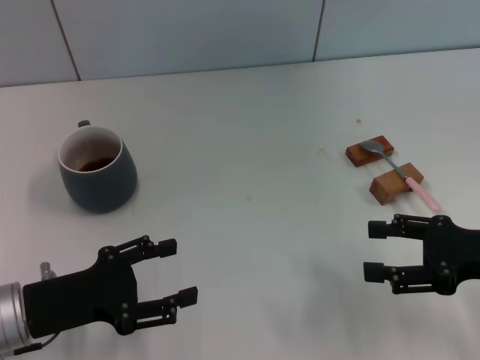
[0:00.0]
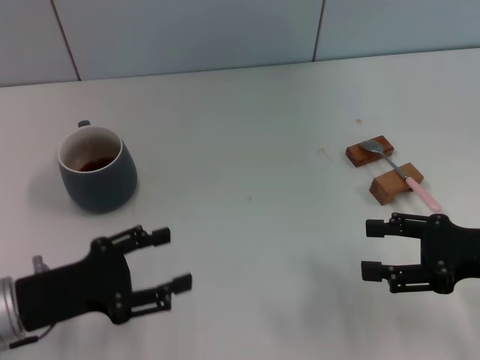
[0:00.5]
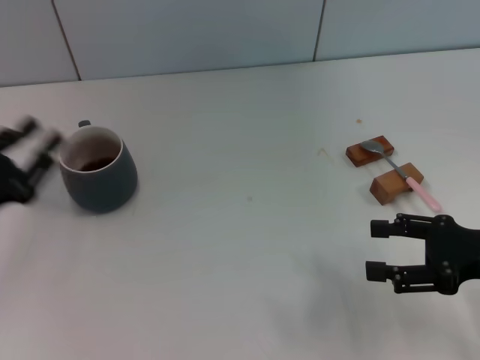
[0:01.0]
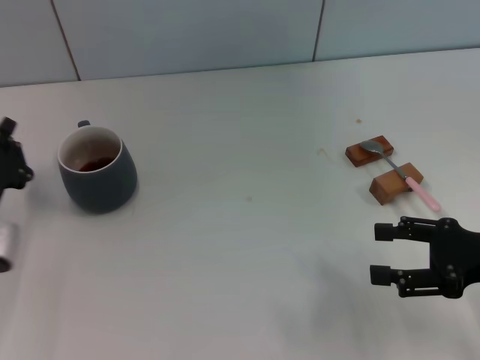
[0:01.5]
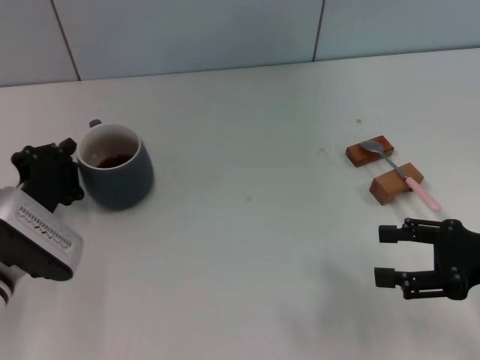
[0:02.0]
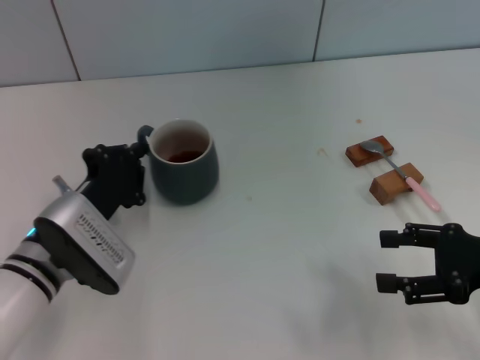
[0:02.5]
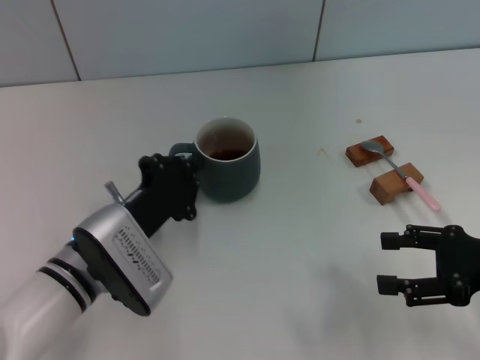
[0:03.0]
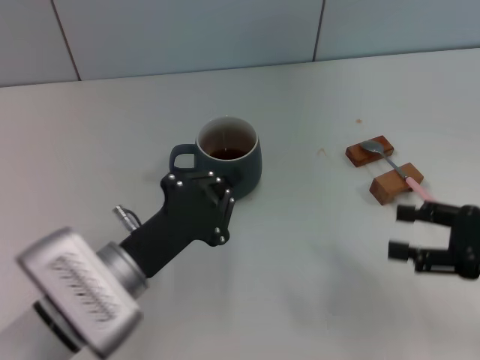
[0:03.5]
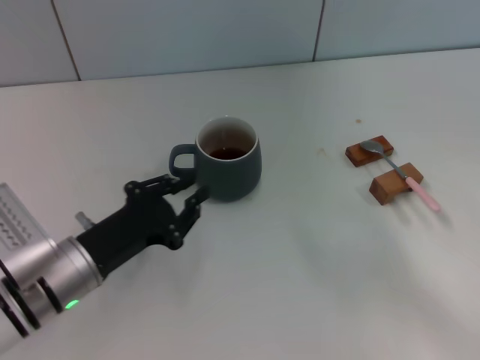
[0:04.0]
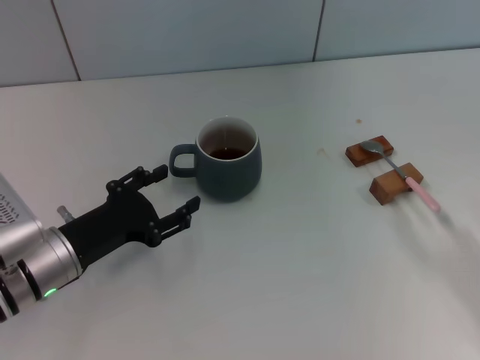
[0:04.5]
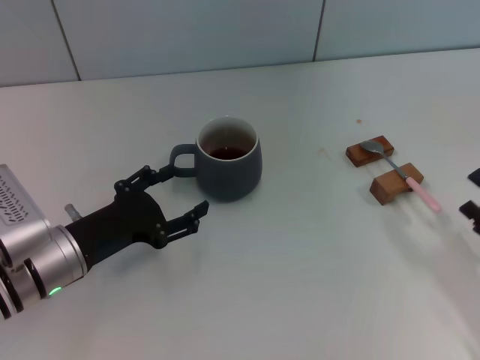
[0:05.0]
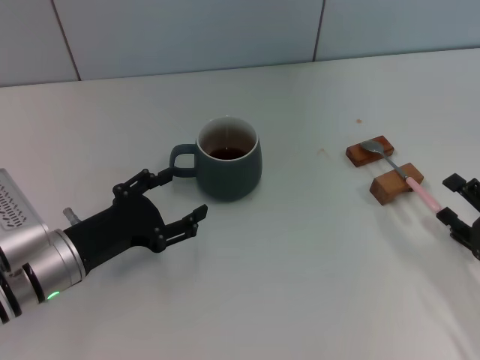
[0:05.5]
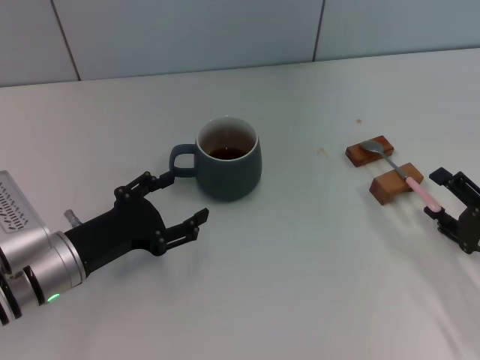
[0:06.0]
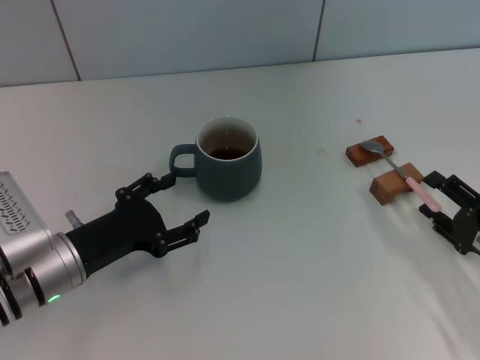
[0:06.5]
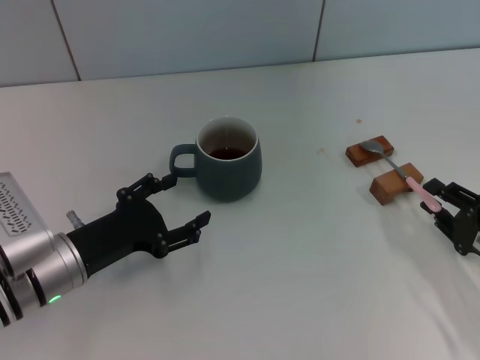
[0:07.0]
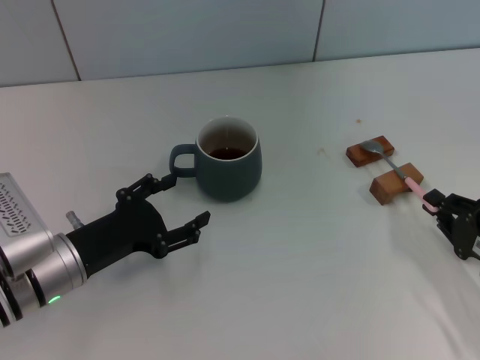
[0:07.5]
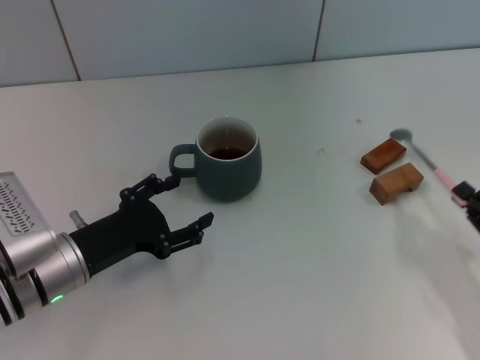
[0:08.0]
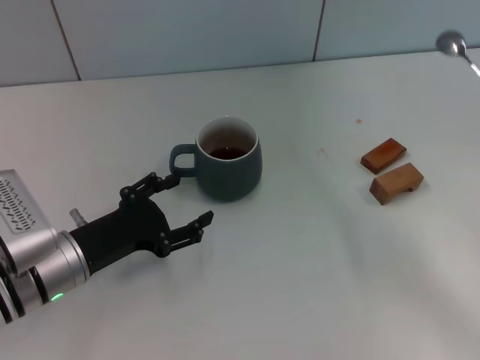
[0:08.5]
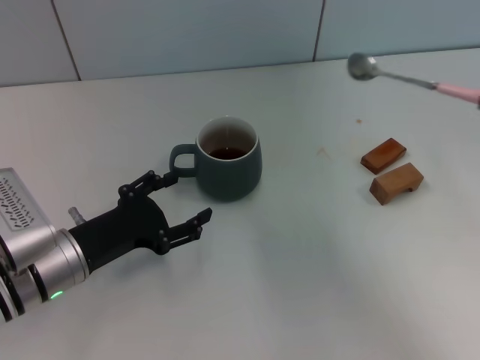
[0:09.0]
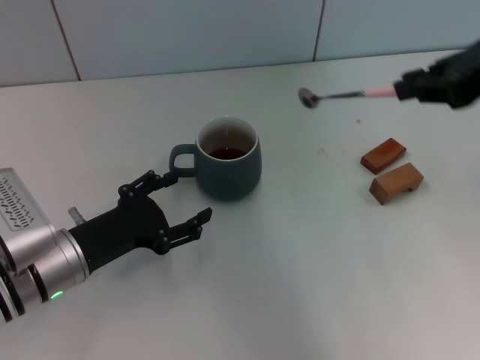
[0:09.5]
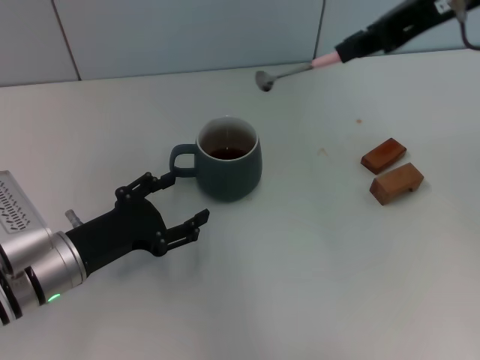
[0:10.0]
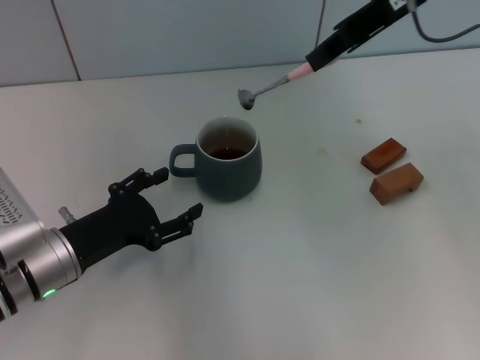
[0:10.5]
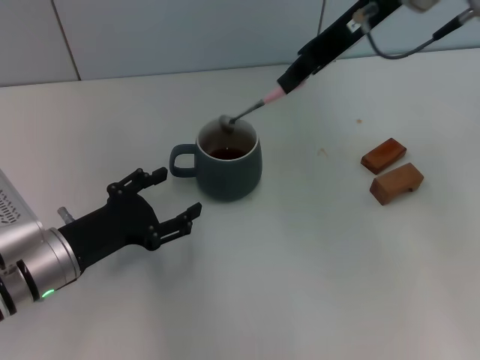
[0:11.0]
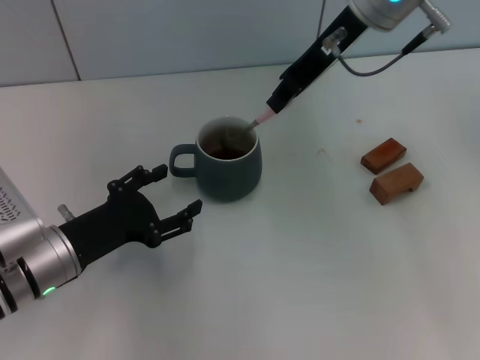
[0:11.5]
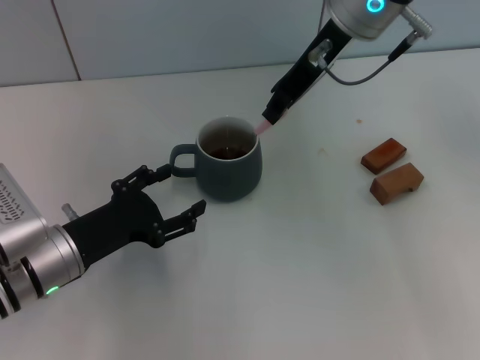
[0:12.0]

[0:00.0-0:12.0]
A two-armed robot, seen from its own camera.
Task of the whole recording: Move the grey cup to the center, lift the pink spoon, stir it three times in the cup, and put the spoon into the cup.
Step, 0:00.0 to 0:03.5: Move the cup with coffee to the center of view with the left gripper.
Step, 0:04.0 to 0:08.0: Pick up the spoon with the right gripper.
0:00.0 to 0:02.0: The left gripper is displaced forward by roughly 5 cm, and closes.
0:02.0 to 0:04.0: The right gripper changes place by some 5 cm.
0:04.0 to 0:06.0: The right gripper heads downward, covering about 10 cm. Meanwhile the left gripper opens its fingers.
0:06.0 to 0:08.0: The right gripper closes its fingers.
0:08.0 to 0:10.0: The right gripper heads upward and forward, covering approximately 35 cm.
0:10.0 to 0:12.0: The right gripper moves to the left, forward and downward, approximately 15 cm.

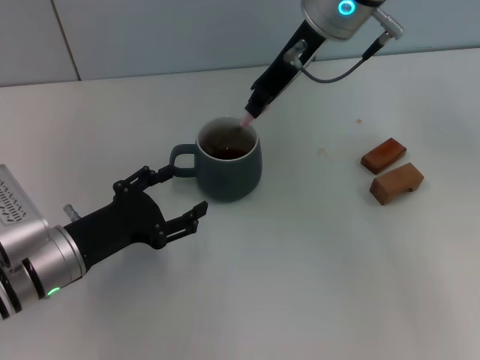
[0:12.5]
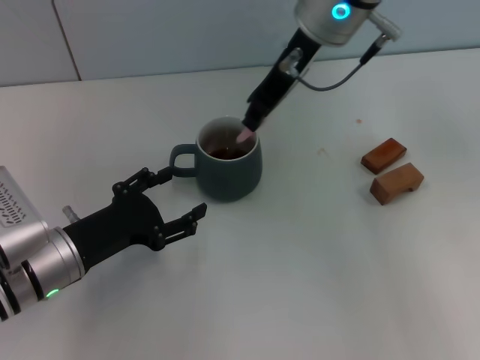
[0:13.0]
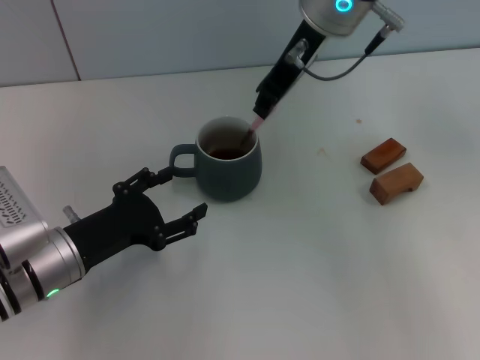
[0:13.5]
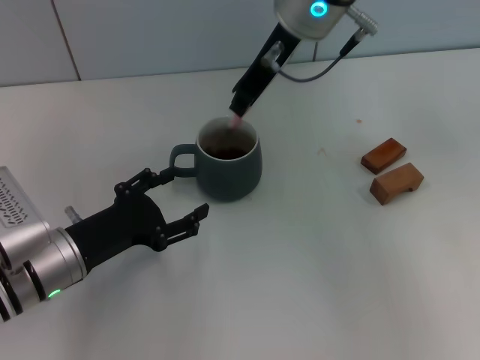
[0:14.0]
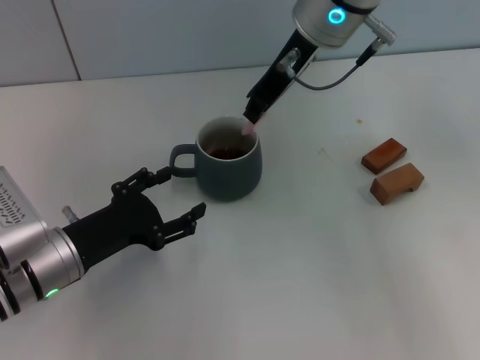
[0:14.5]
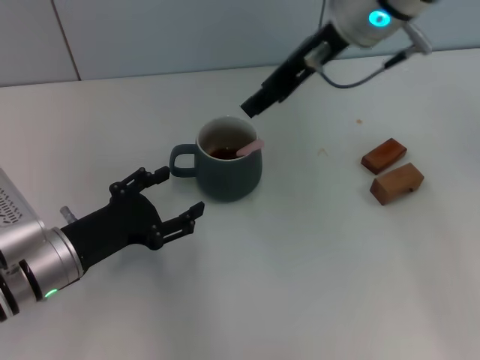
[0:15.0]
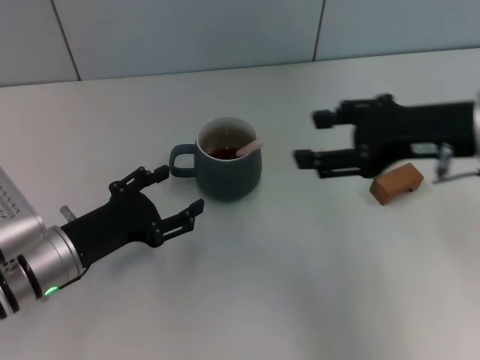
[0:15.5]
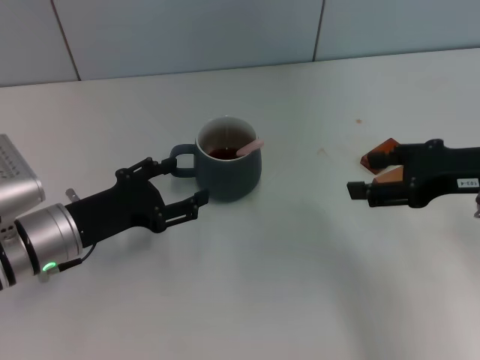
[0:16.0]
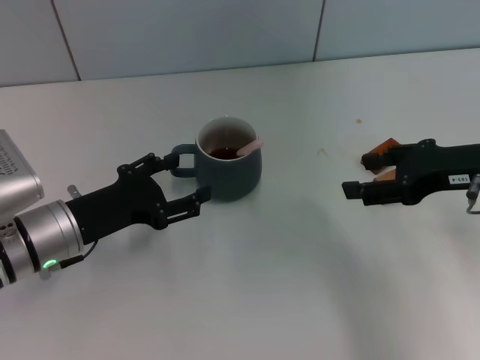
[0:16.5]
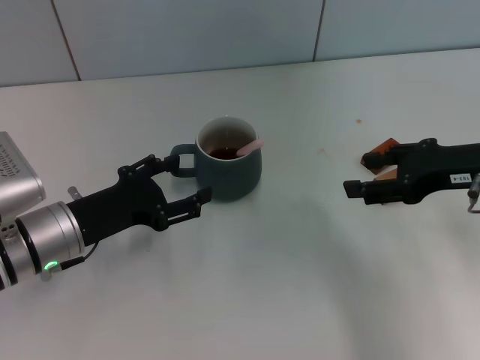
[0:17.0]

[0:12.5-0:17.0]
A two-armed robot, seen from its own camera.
Task of the whole recording: Move the grey cup to the center, lift the pink spoon, stir it three times in the cup, and put the spoon into the cup.
Step, 0:12.5 to 0:15.0: Stir the coffee in the cup with the right gripper.
0:12.5 to 0:14.5: The grippers make only small movements.
0:14.5 to 0:17.0: The right gripper travels to the right, backward and downward by approximately 25 cm, and opens up.

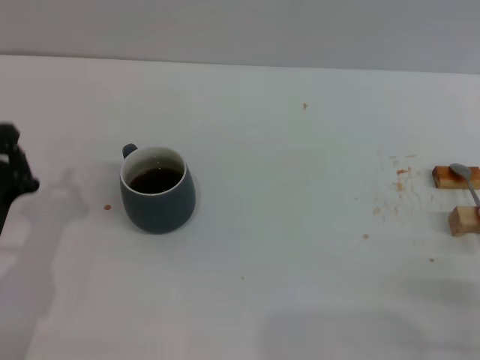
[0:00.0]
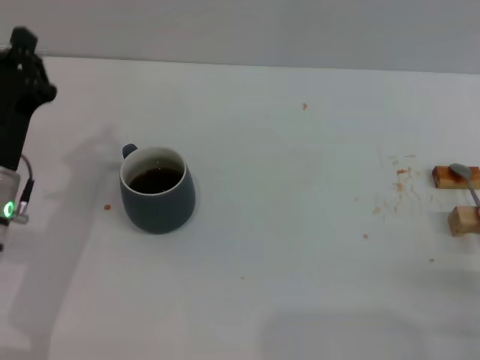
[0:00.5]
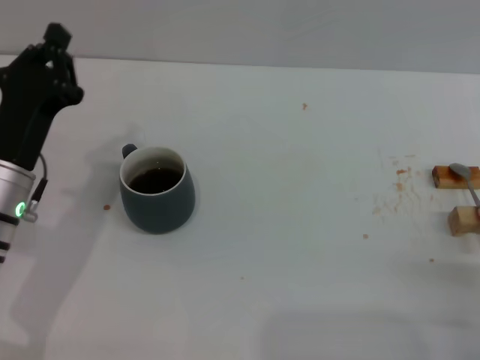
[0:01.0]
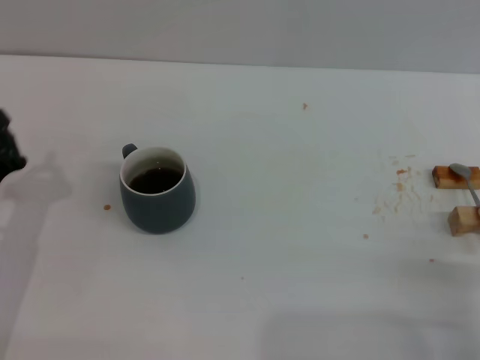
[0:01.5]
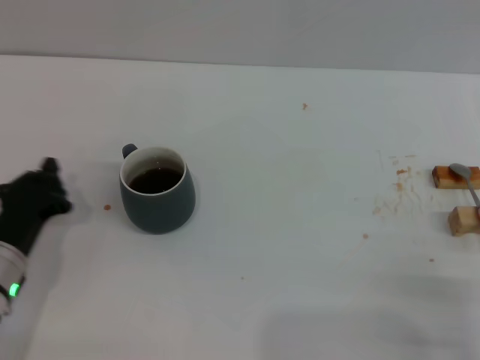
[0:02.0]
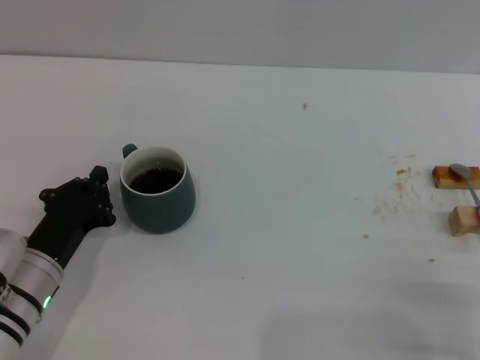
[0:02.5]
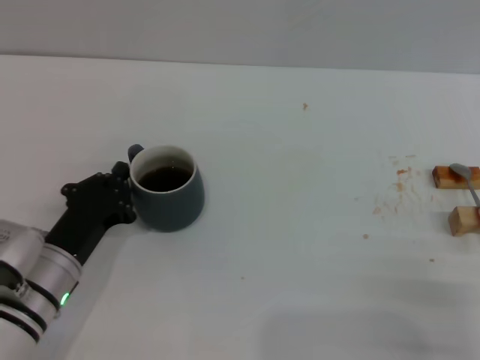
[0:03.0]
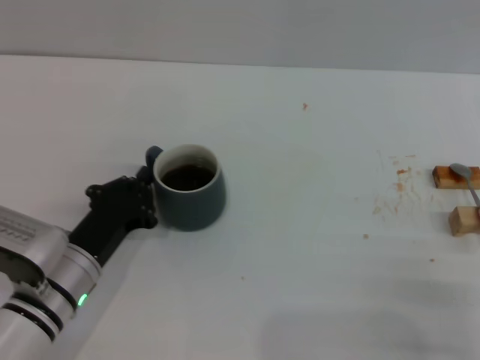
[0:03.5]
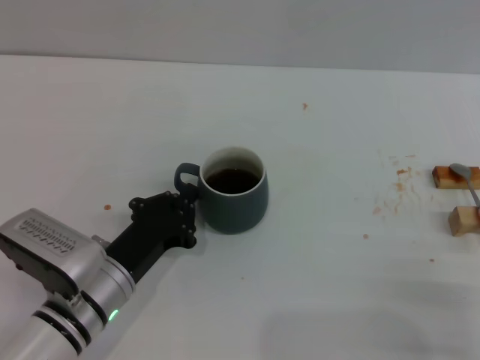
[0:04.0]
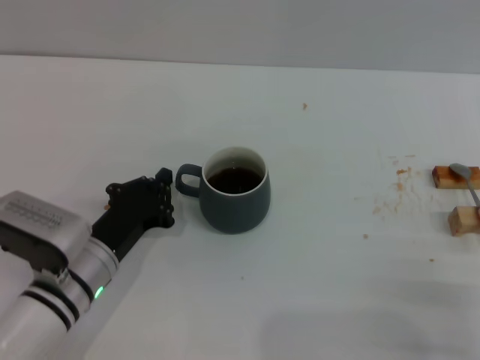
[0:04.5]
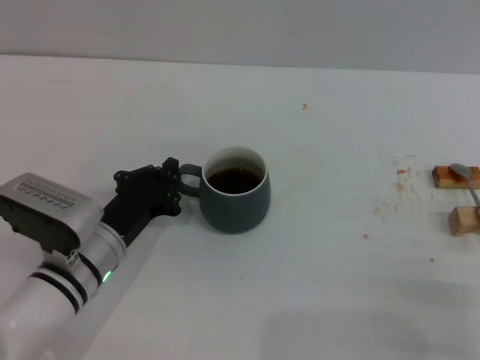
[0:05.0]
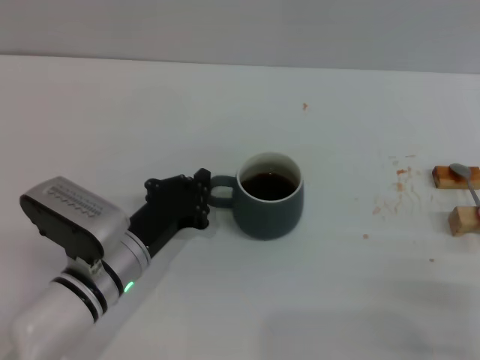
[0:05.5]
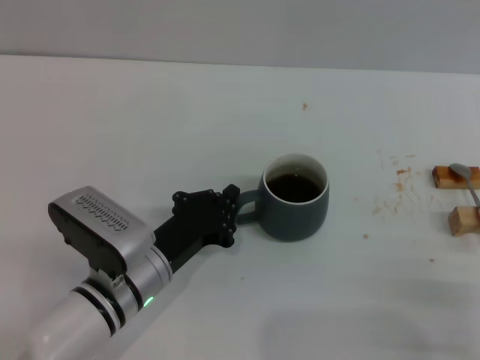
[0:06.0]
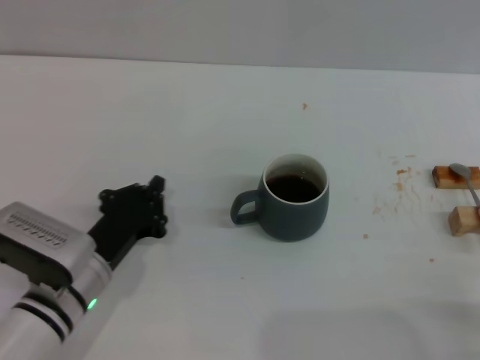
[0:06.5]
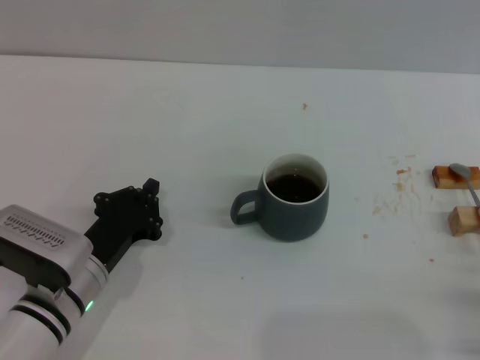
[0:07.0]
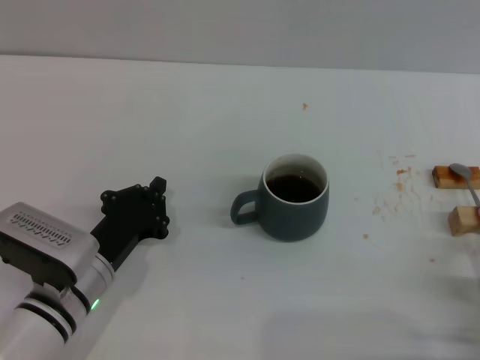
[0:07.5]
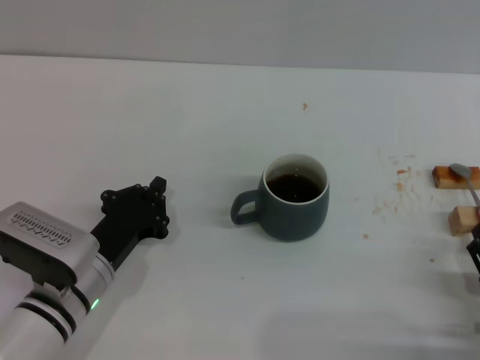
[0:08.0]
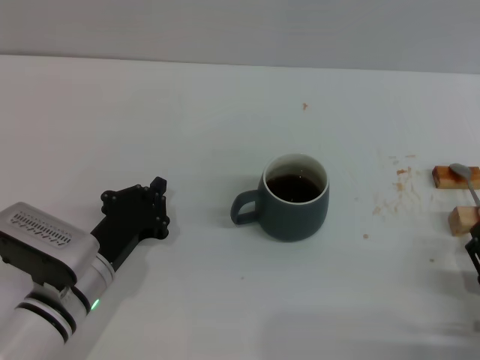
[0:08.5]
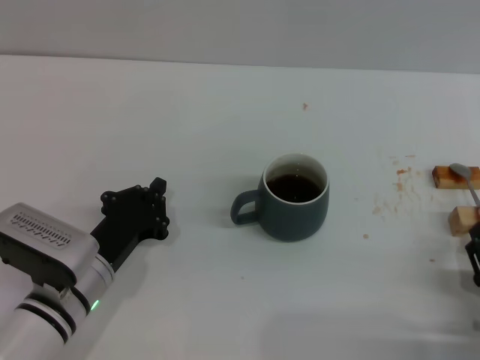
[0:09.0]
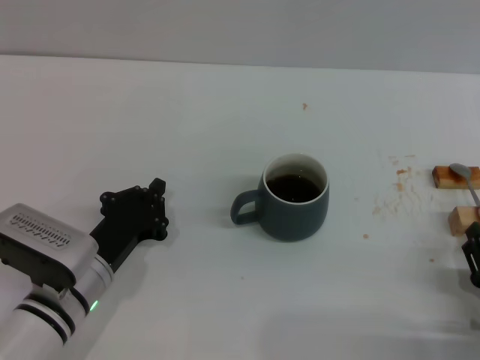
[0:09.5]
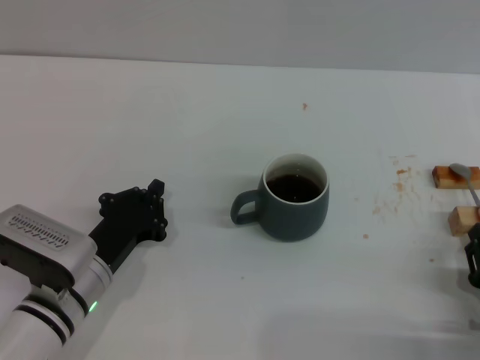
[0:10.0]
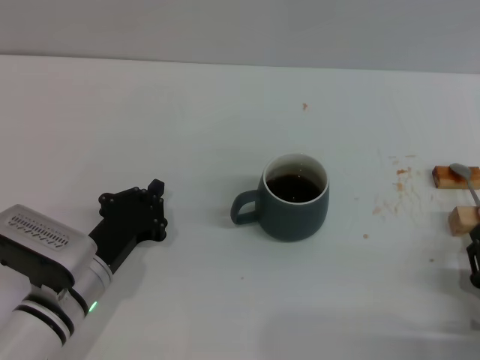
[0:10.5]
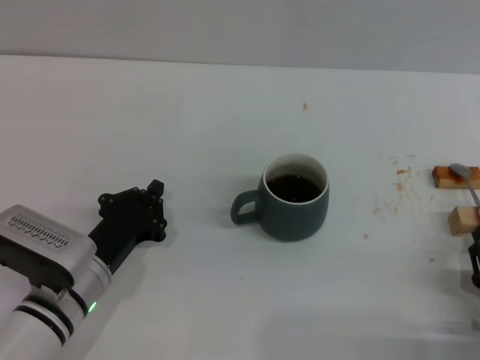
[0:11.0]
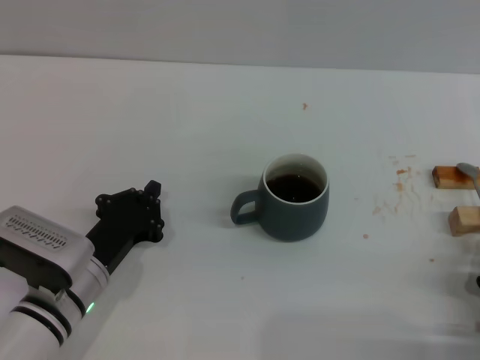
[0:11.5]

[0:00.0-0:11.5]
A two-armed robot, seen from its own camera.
Task of the whole recording: Move the grey cup to the center, lift the pink spoon, stir it three times in the cup, and put the spoon into the cup.
Step, 0:00.0 to 0:06.5: Move the cup with coffee to the center of view with the left gripper.
0:02.0 to 0:04.0: The left gripper shifts roughly 10 cm to the right.
0:04.0 to 0:06.0: The grippers stay close to where they were, moving slightly.
0:06.0 to 0:07.5: The left gripper goes approximately 5 cm to the left.
0:07.5 to 0:09.5: The grippers stay close to where they were, moving slightly.
0:09.5 to 0:11.5: The right gripper closes up.
